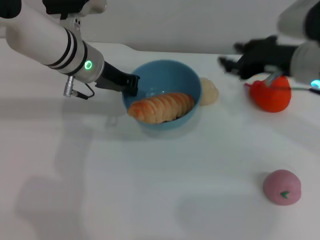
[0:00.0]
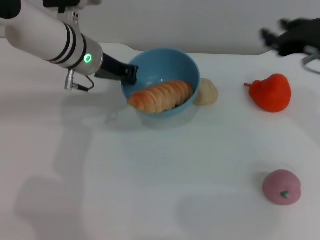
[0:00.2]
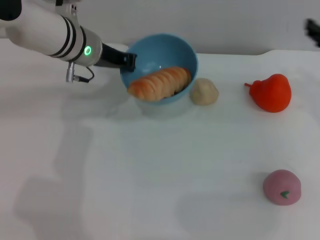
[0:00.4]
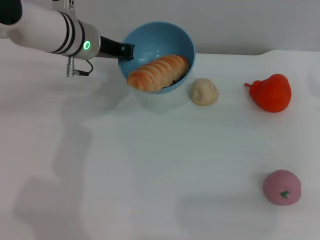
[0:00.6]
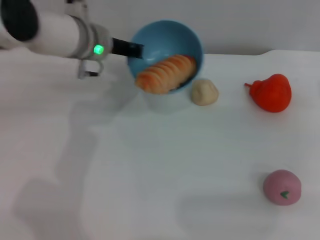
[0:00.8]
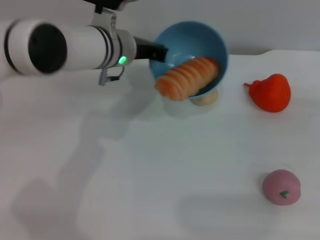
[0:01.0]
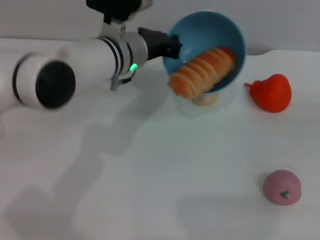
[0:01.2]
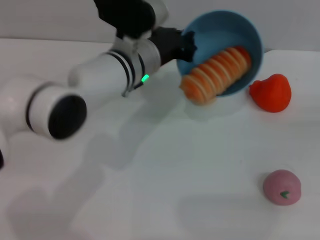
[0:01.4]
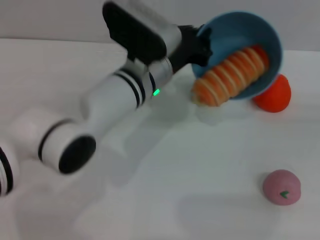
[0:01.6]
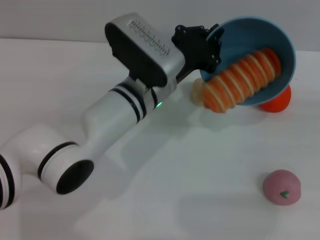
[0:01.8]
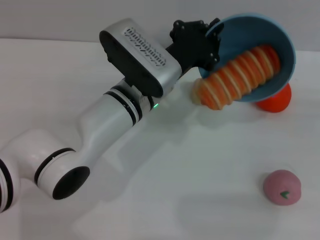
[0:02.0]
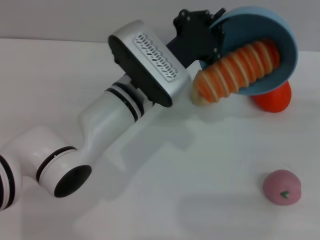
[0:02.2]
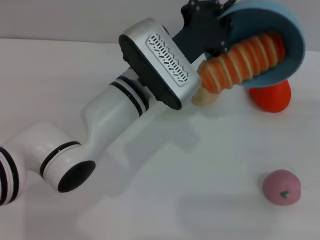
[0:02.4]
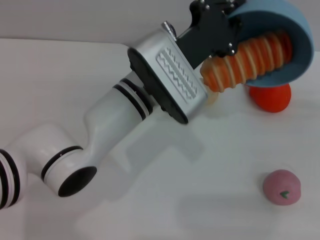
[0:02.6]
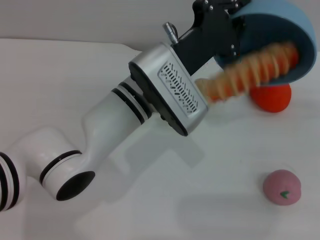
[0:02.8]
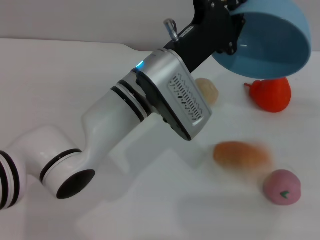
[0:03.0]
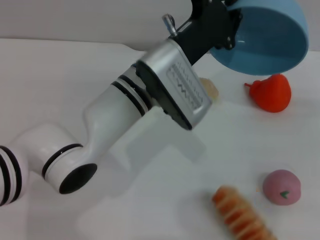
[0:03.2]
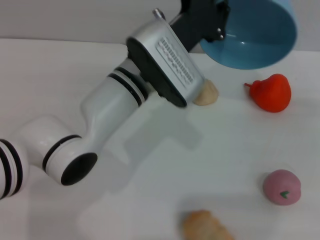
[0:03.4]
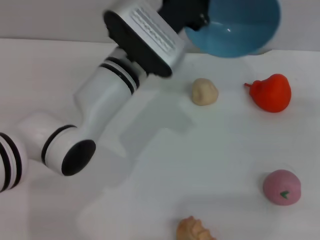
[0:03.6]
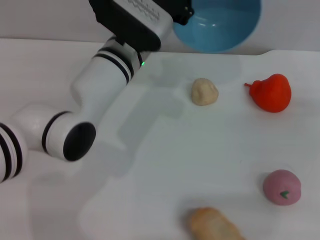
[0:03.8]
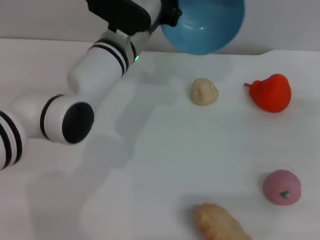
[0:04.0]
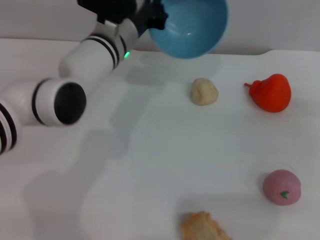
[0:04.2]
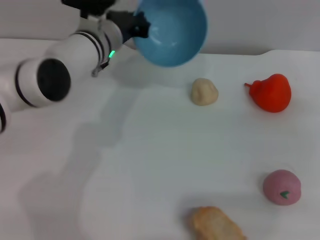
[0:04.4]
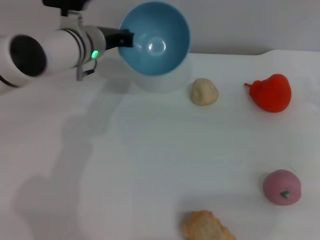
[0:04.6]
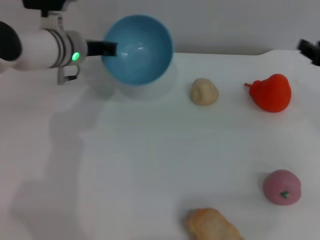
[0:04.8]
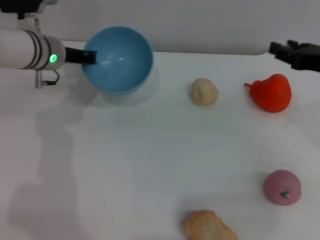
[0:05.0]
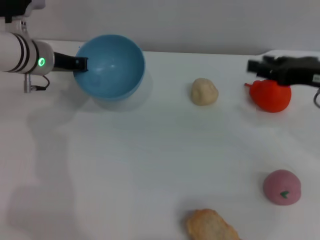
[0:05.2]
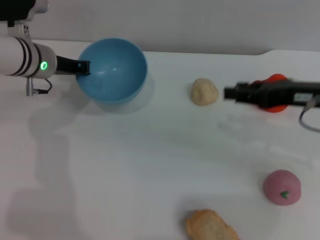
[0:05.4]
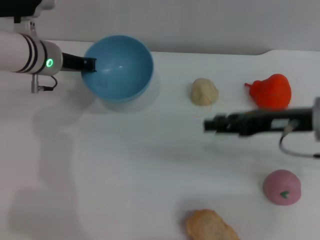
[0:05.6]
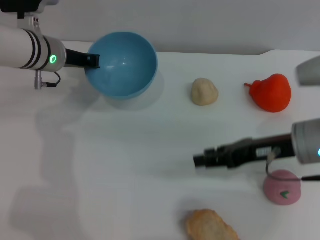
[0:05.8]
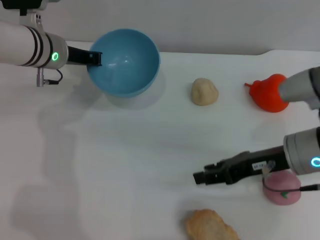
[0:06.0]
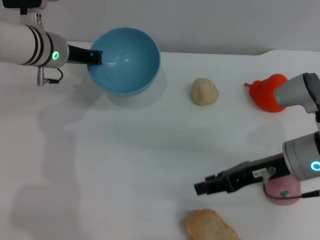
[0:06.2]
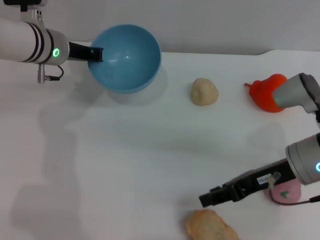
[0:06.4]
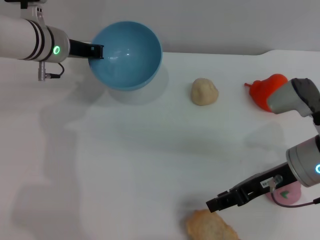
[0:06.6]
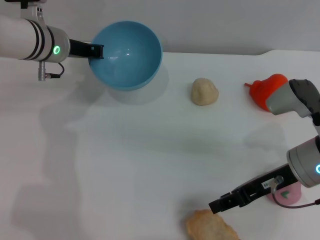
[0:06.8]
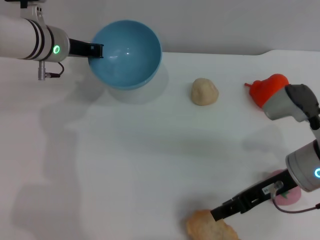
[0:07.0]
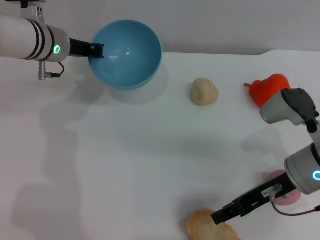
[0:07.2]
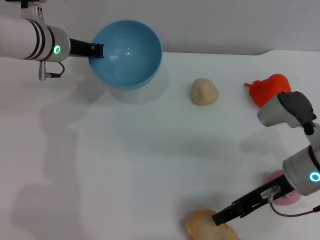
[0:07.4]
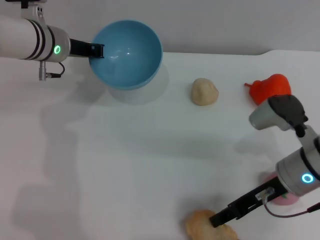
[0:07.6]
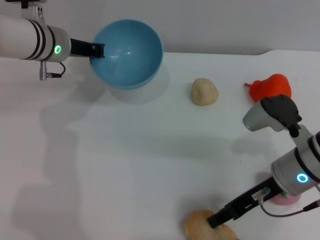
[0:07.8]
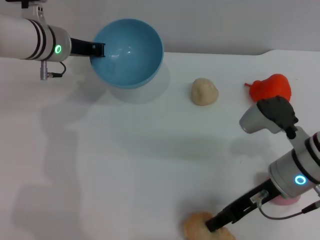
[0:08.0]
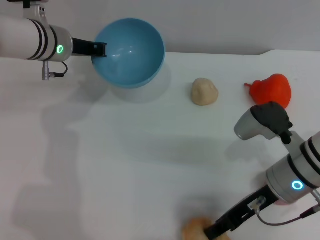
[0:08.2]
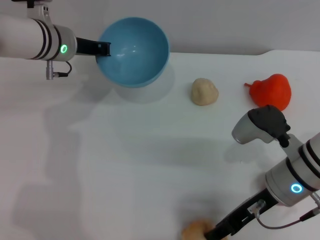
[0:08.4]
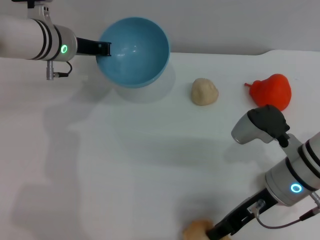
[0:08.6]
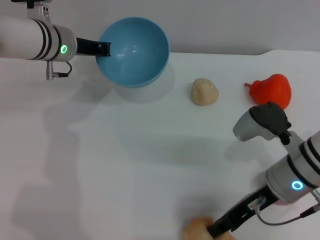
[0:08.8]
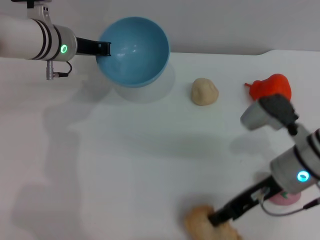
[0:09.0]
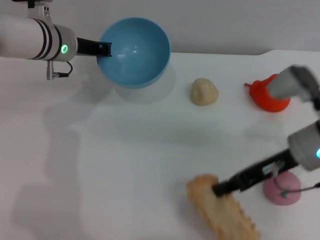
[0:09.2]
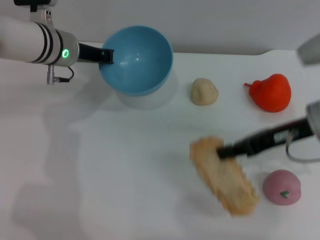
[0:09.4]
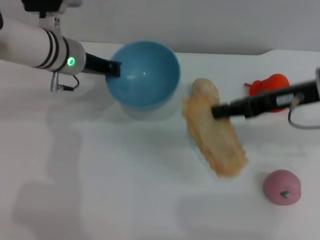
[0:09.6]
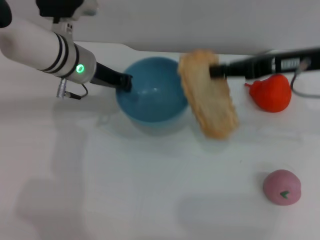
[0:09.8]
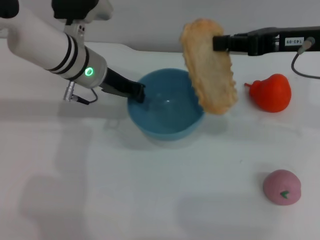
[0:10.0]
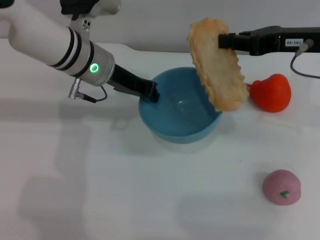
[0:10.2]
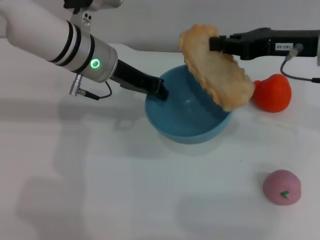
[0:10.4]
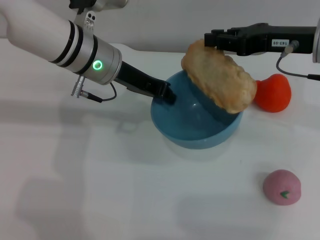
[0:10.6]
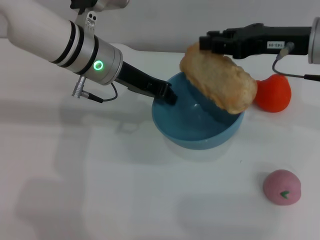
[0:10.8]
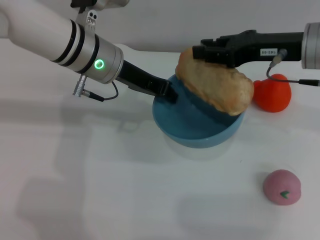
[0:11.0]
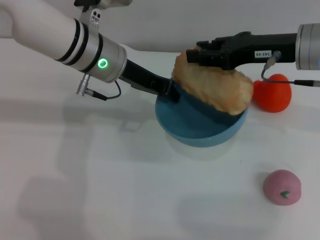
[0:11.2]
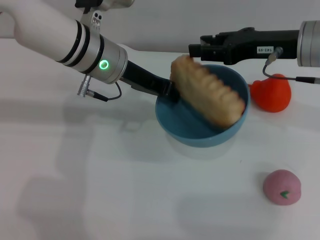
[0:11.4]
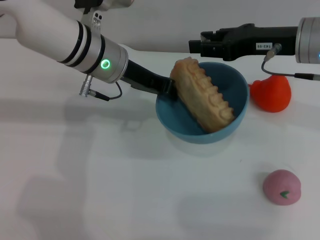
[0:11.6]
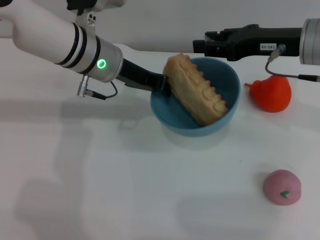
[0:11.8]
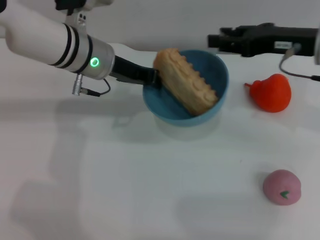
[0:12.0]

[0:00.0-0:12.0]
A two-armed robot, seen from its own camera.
Task of the whole recording: put the bread into the blue bowl and pour it out repeatedly.
Step, 0:00.0 to 0:03.6: Pour the bread out of the bowl.
Step, 0:03.8 to 0:09.4: Pick up the bread with the right gripper.
0:00.0 to 0:01.6: The left gripper heads to the right, covering about 10 cm; the right gripper is displaced to the right by about 20 cm.
0:03.0 to 0:04.4: The left gripper goes about 15 cm forward and to the left.
0:04.4 to 0:06.0: The right gripper heads to the left, covering some 15 cm. The left gripper is displaced to the left by about 10 cm.
0:07.6 to 0:09.0: The right gripper closes its fingers.
0:09.0 to 0:10.4: The left gripper is displaced to the right by about 5 cm; the right gripper moves upward and forward, approximately 15 cm.
0:10.4 to 0:12.0: The right gripper opens its fingers.

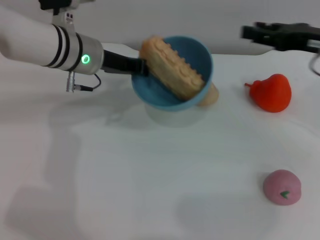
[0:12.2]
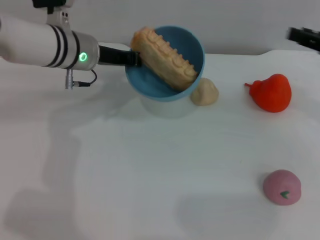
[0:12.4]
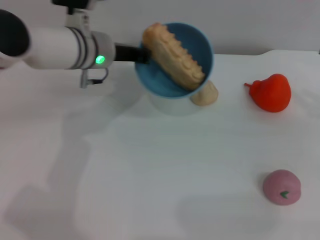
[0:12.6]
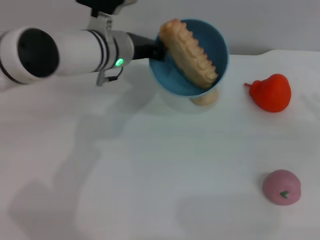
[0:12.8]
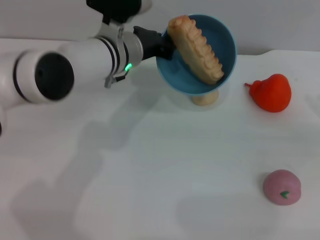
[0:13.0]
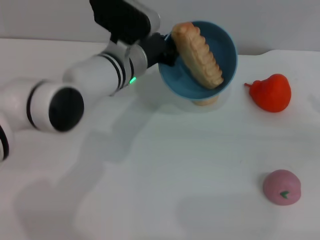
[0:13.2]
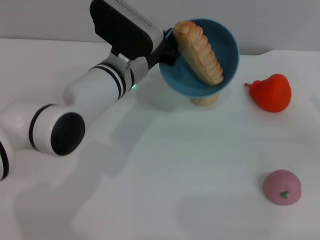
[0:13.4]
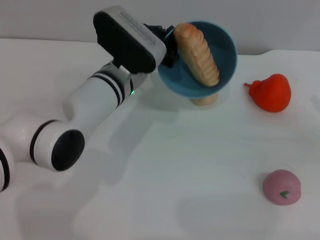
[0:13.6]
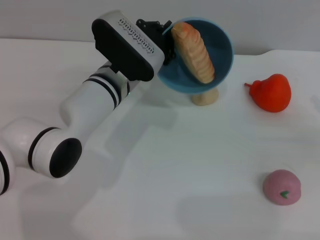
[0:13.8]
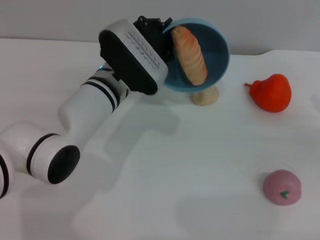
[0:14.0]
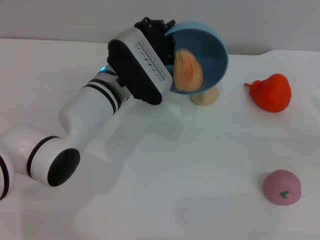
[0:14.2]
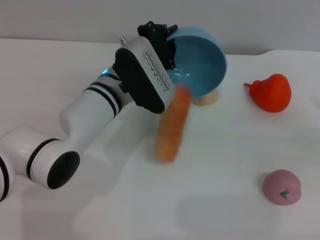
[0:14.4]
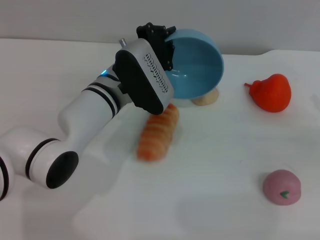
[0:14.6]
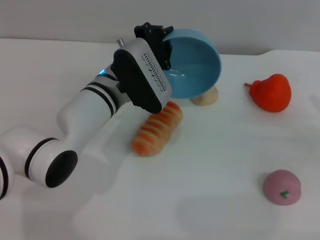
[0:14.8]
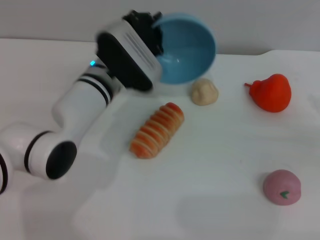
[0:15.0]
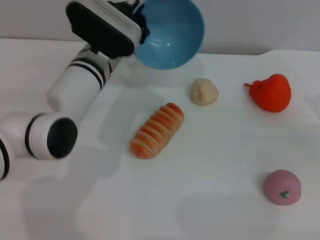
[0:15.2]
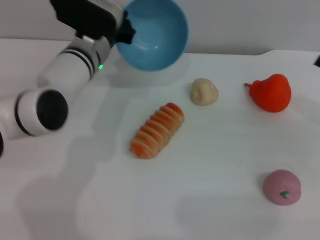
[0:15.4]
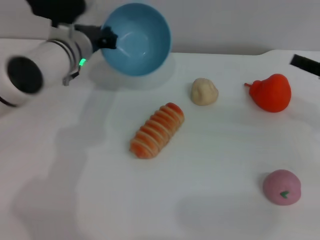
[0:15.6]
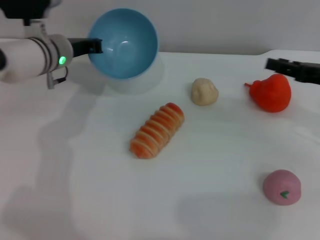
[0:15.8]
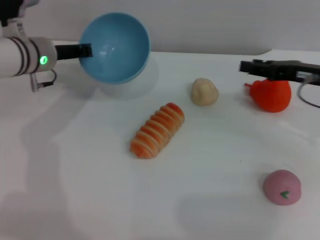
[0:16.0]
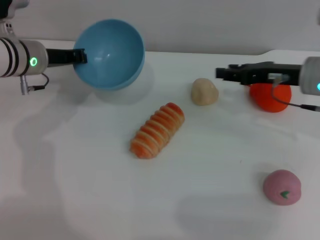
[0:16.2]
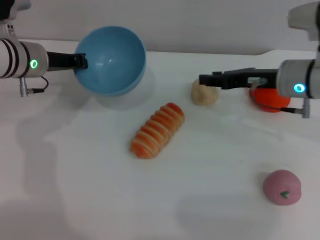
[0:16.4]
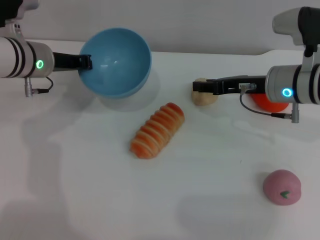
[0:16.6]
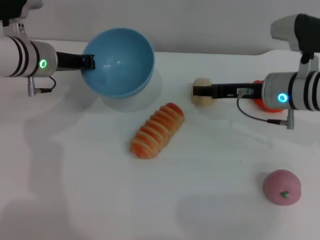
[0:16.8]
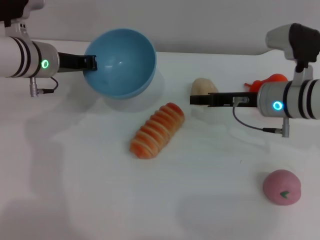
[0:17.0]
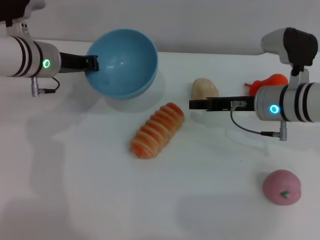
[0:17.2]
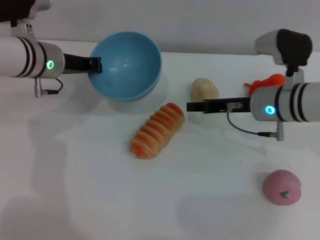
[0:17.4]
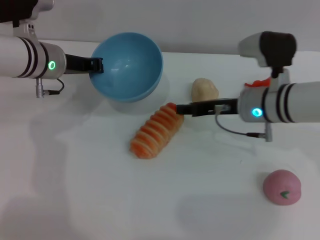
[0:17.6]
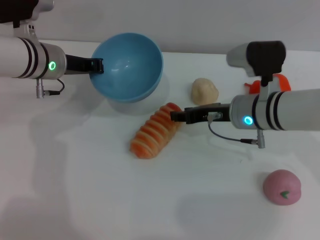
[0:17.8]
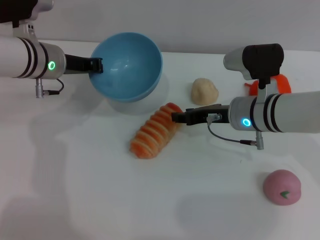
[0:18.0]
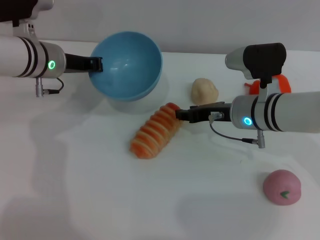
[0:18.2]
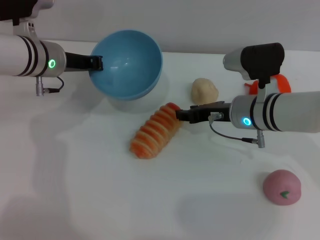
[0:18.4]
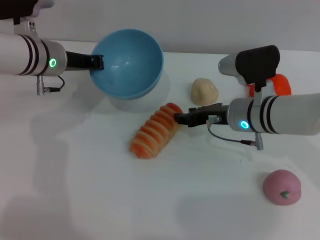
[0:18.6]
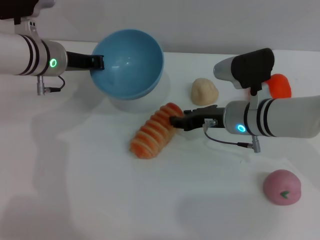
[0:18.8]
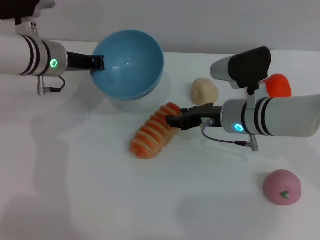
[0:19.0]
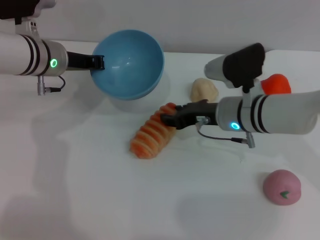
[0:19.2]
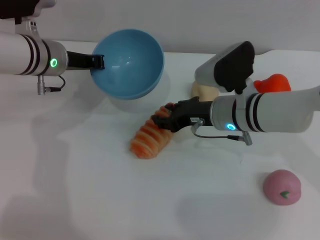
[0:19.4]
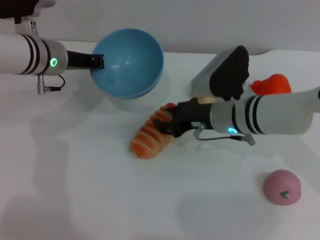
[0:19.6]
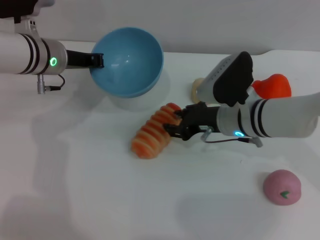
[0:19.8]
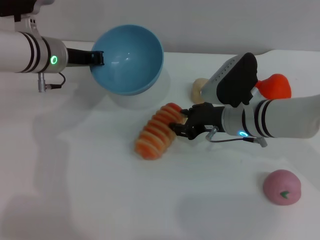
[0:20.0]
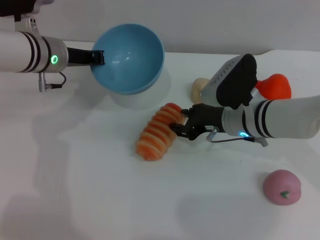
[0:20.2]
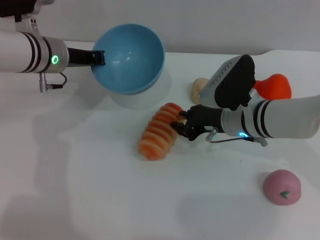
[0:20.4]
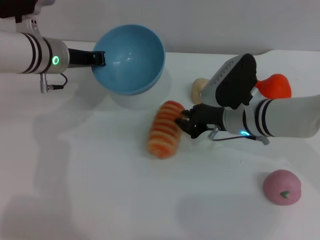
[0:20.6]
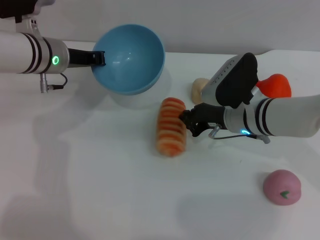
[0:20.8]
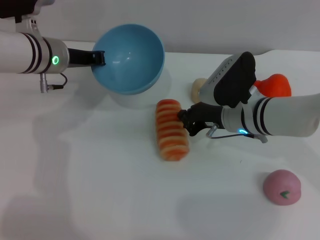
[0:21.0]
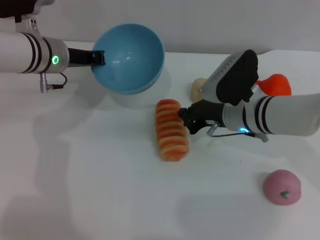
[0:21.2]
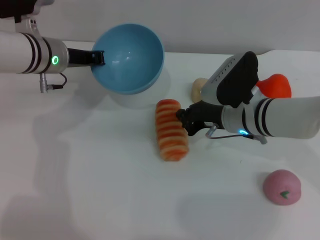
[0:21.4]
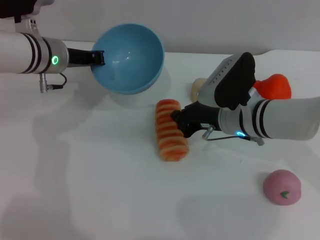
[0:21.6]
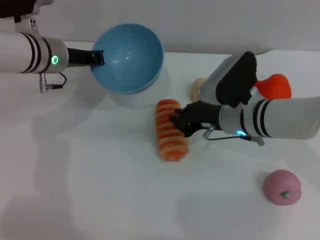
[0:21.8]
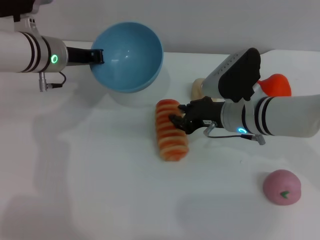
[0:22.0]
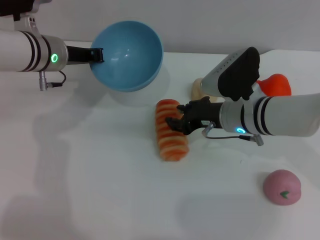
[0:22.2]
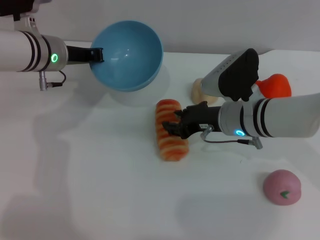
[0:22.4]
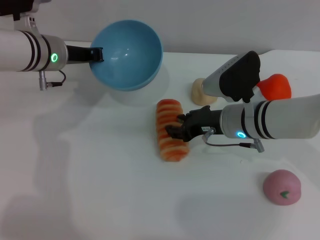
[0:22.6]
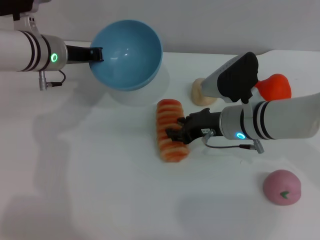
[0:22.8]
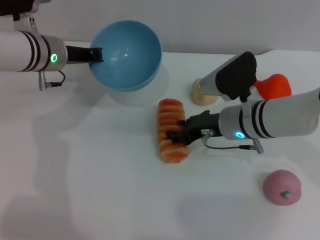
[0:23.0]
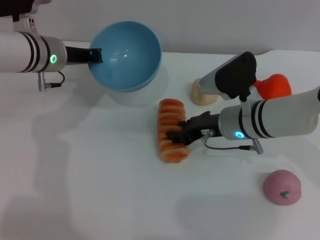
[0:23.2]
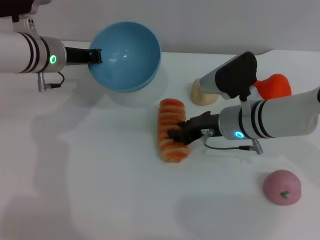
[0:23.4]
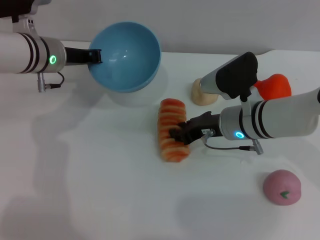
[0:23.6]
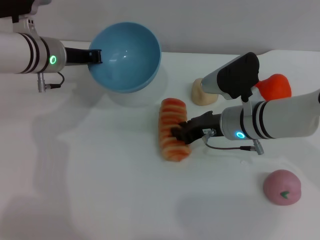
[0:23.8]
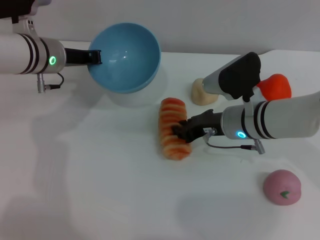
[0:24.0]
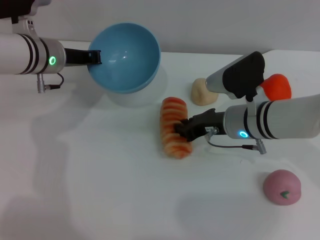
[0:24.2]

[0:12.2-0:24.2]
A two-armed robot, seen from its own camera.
Task of the whole recording: put the bread into the blue bowl and pour it out repeatedly.
Step, 0:12.8 to 0:15.4: Pour the bread out of the bowl.
0:12.2 to 0:13.8: The right gripper heads to the right, backward and downward, covering approximately 15 cm; the left gripper moves to the right and downward, about 10 cm.
0:15.2 to 0:16.6: The right gripper travels to the left and forward by roughly 20 cm. The left gripper travels to the left by about 10 cm.
0:16.6 to 0:18.2: The right gripper ends up roughly 5 cm from where it was.
0:19.8 to 0:21.2: The right gripper closes up.
0:21.2 to 0:22.6: The right gripper opens up.
0:22.6 to 0:24.2: The right gripper closes up.
